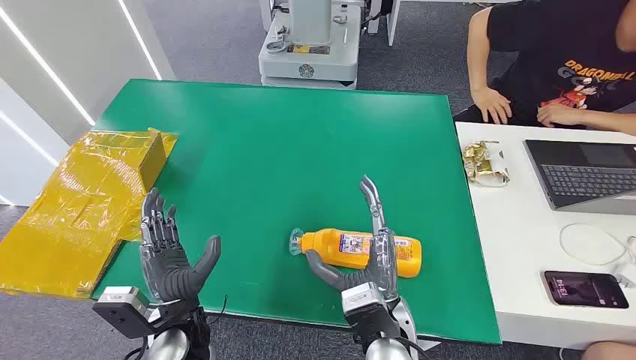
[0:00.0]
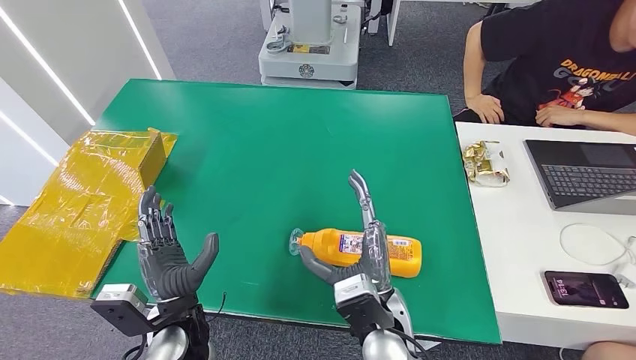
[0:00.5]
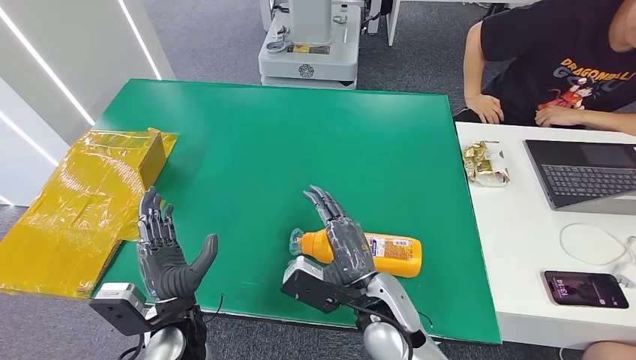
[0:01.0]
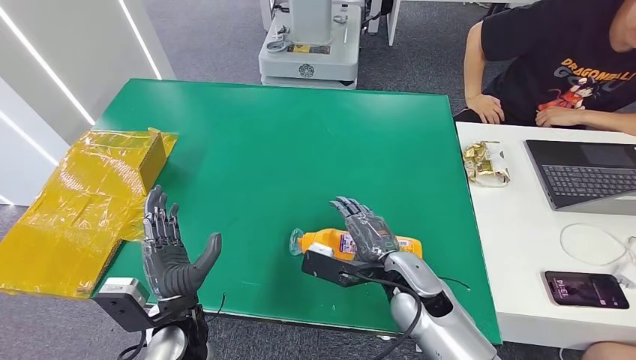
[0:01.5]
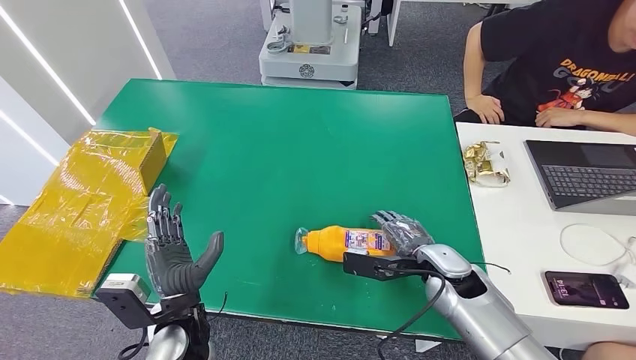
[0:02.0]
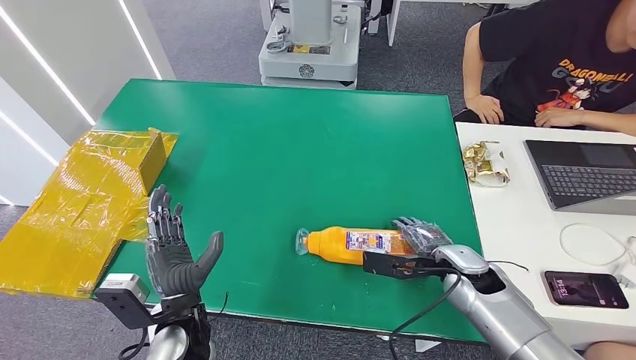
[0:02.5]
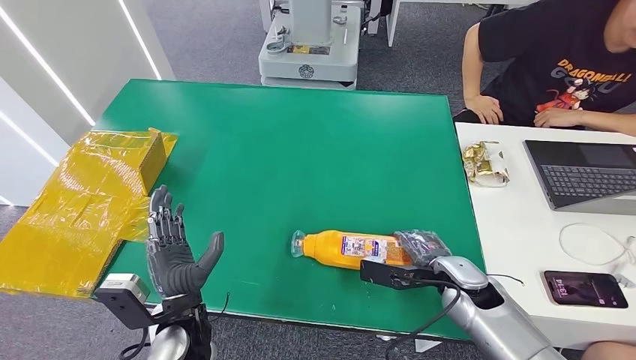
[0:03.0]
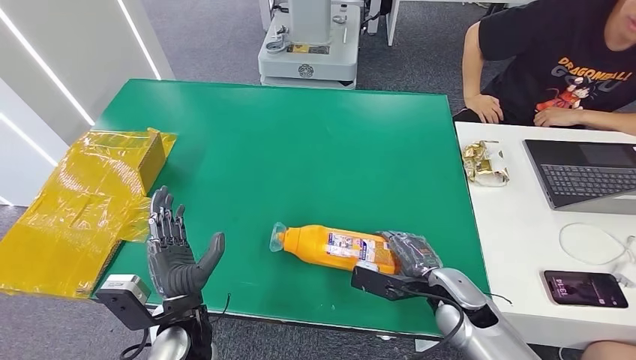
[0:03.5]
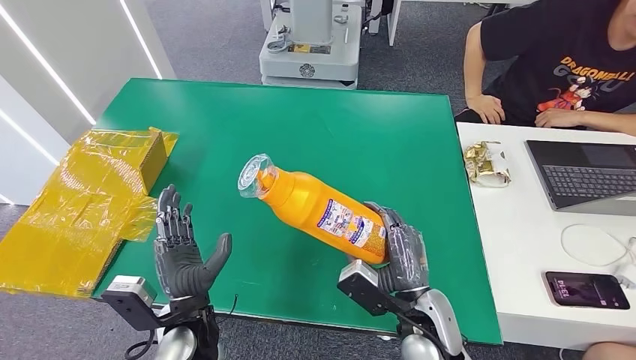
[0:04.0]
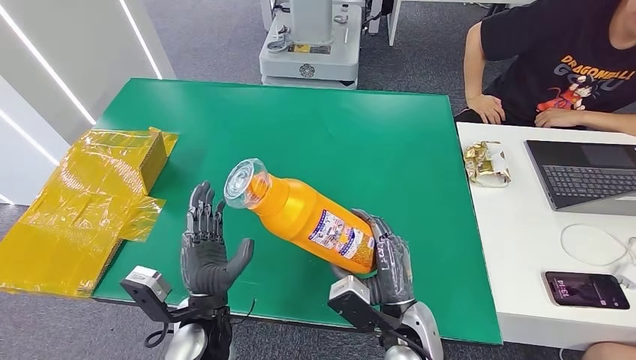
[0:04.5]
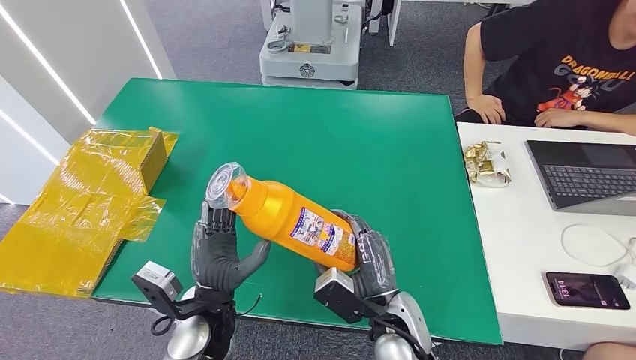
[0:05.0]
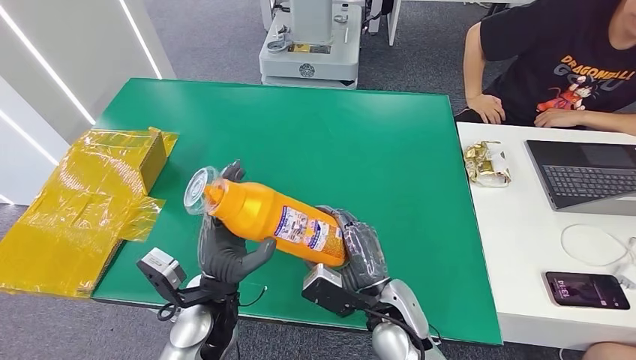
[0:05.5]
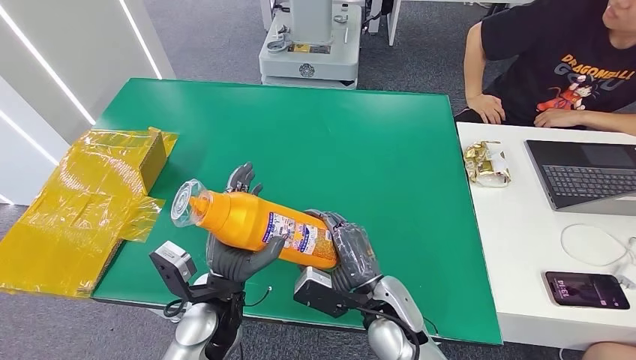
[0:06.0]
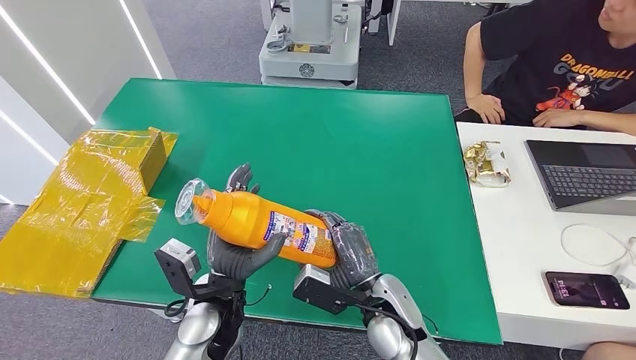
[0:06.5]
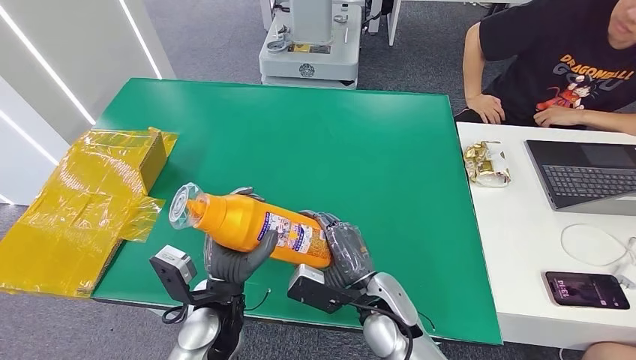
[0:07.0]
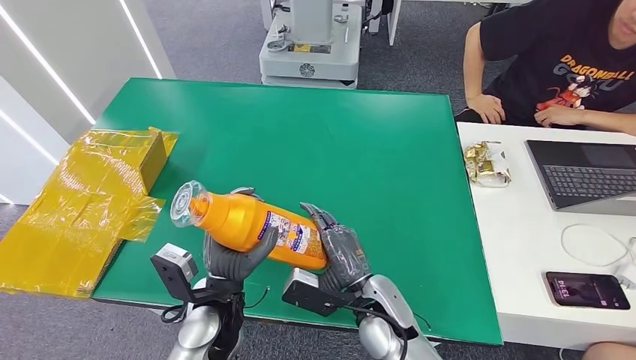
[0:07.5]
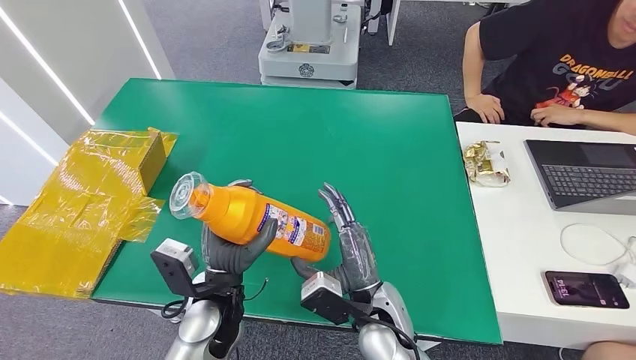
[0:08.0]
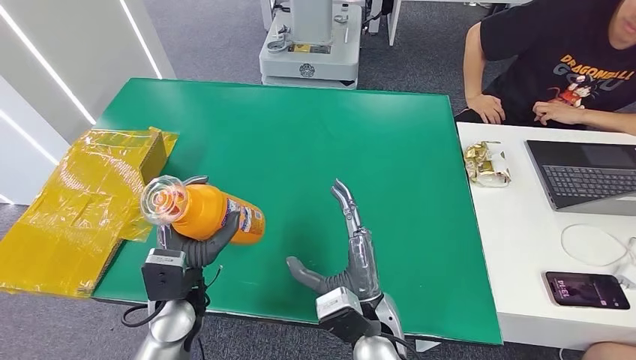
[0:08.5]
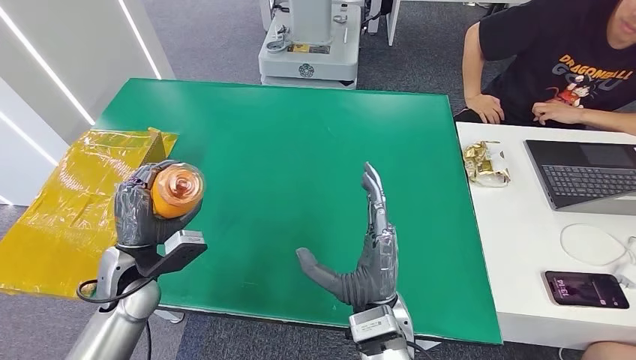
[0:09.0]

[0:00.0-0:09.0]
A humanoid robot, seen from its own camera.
Step, 0:00.0 to 0:04.5: Pick up the bottle from the table.
0:02.0 to 0:04.5: The right hand heads backward and to the left, covering approximately 15 cm.
0:04.5 to 0:07.0: The right hand ends up about 5 cm from where it was.
0:07.0 to 0:09.0: The left hand moves to the left, approximately 15 cm. Meanwhile the right hand shifts about 5 cm upward.

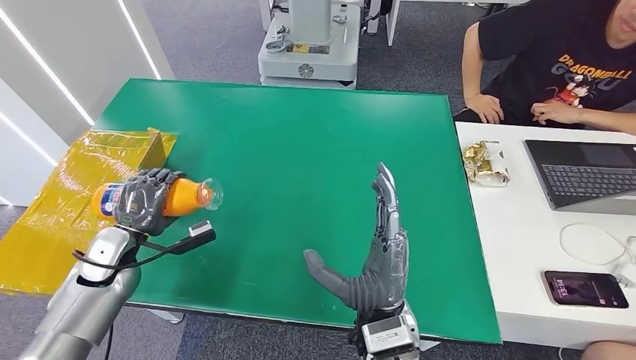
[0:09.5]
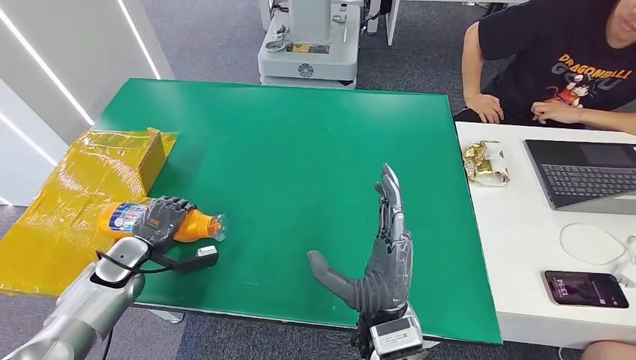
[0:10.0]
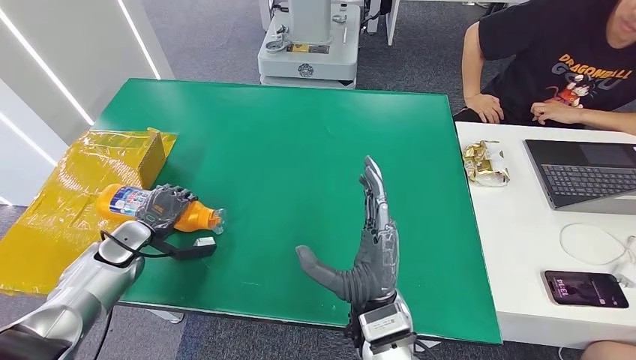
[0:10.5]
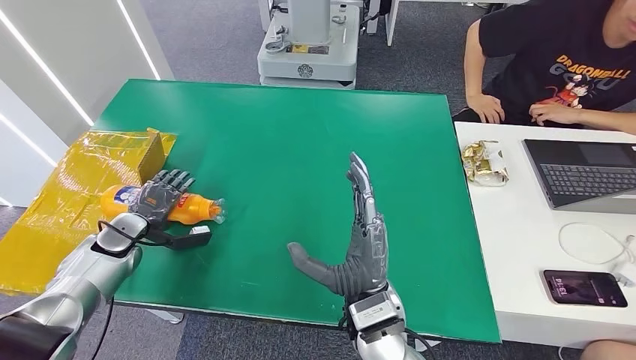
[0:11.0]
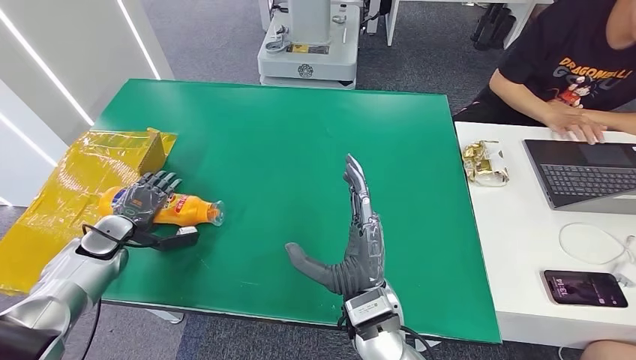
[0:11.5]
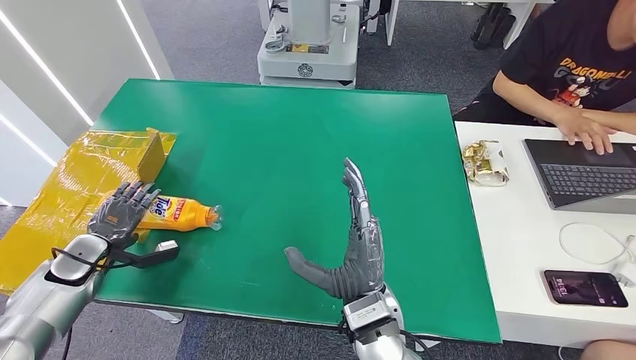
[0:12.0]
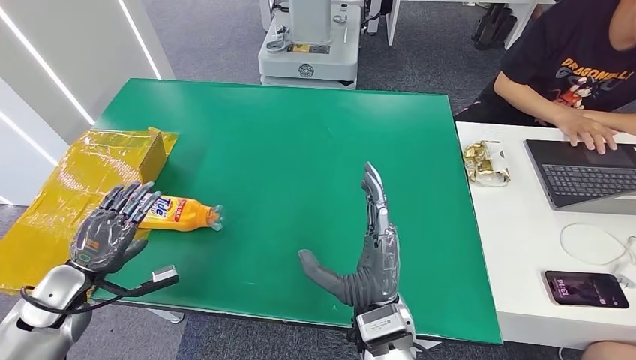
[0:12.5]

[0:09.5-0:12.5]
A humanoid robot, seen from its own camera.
Step, 0:09.5 to 0:12.5: Turn the bottle to the front side.
0:09.5 to 0:11.0: The left hand travels to the left and forward by approximately 5 cm.
0:11.0 to 0:12.5: The left hand moves backward, about 15 cm.
